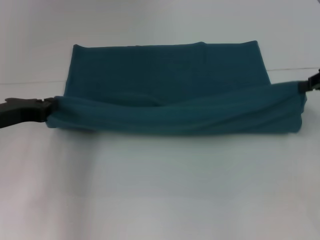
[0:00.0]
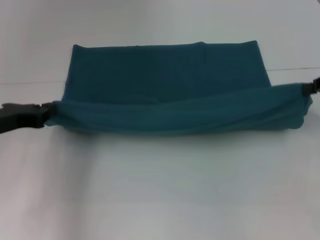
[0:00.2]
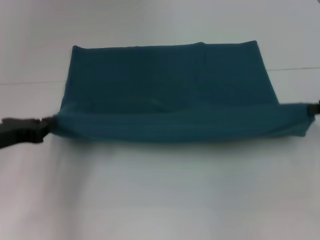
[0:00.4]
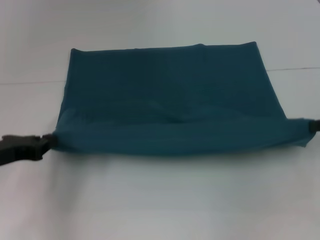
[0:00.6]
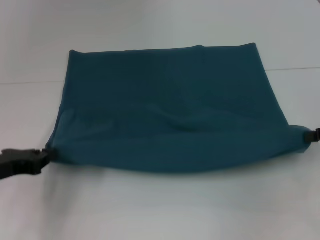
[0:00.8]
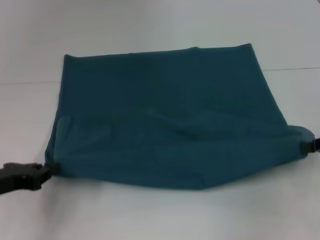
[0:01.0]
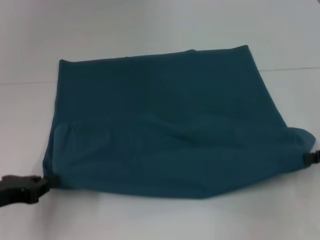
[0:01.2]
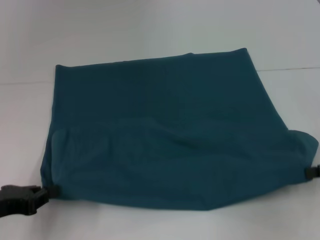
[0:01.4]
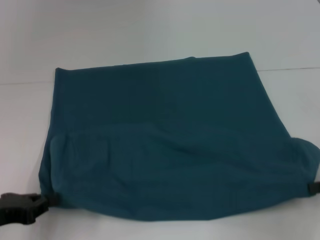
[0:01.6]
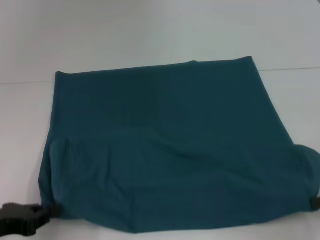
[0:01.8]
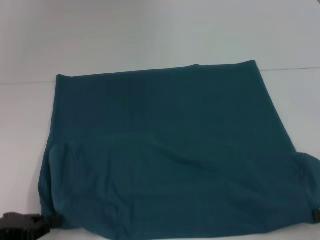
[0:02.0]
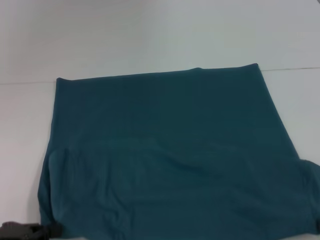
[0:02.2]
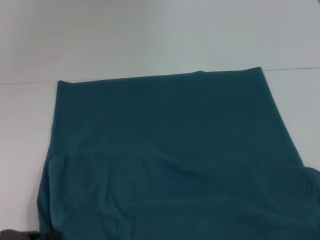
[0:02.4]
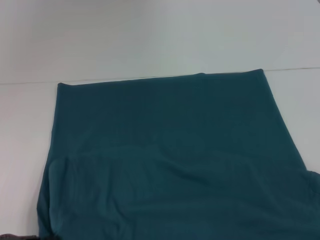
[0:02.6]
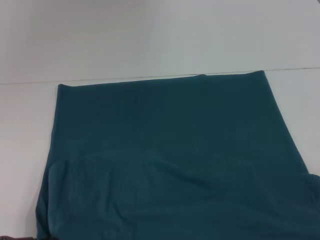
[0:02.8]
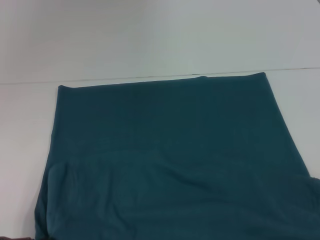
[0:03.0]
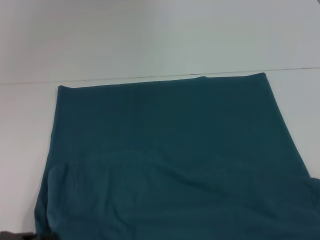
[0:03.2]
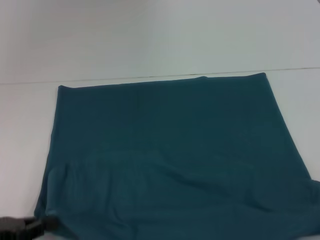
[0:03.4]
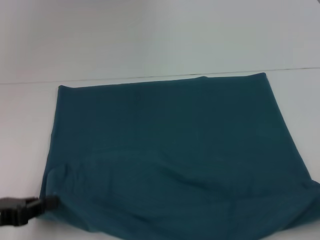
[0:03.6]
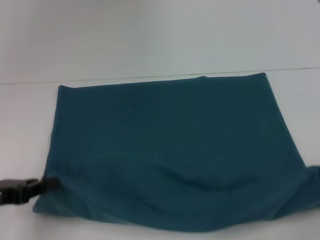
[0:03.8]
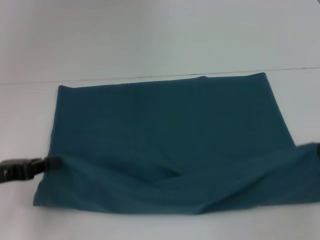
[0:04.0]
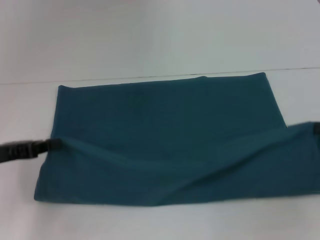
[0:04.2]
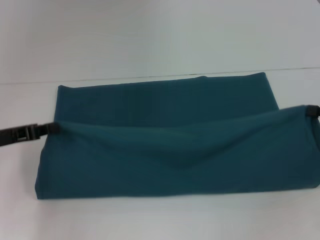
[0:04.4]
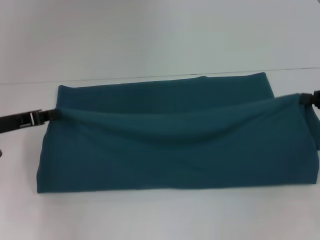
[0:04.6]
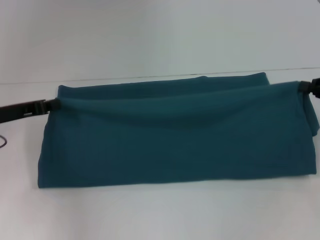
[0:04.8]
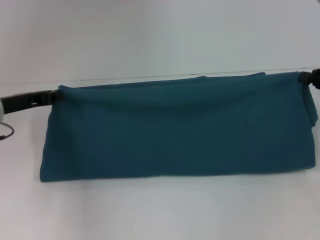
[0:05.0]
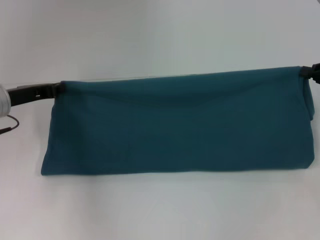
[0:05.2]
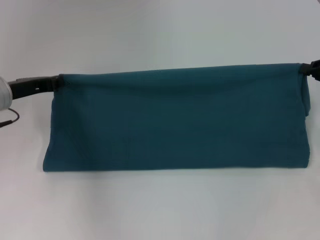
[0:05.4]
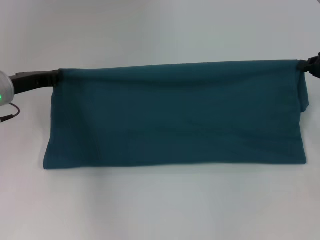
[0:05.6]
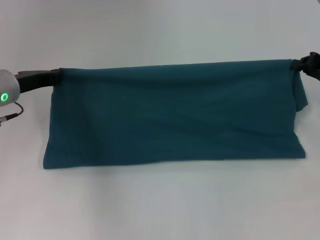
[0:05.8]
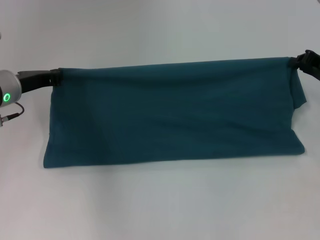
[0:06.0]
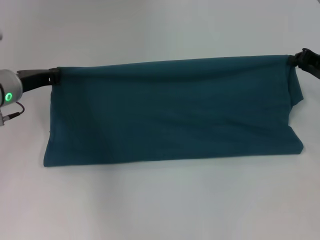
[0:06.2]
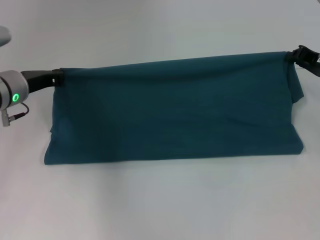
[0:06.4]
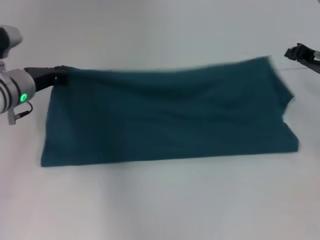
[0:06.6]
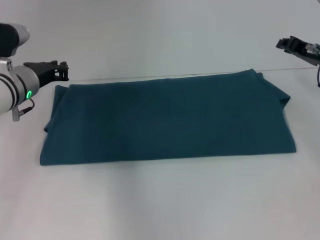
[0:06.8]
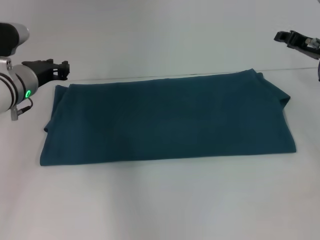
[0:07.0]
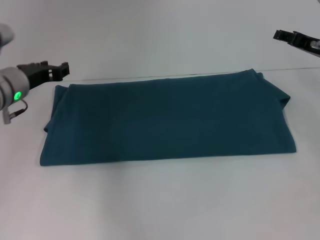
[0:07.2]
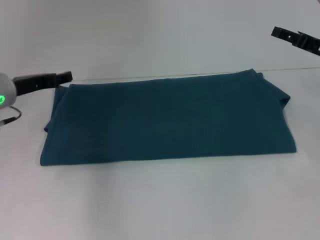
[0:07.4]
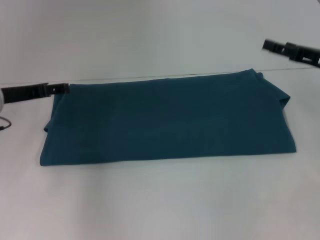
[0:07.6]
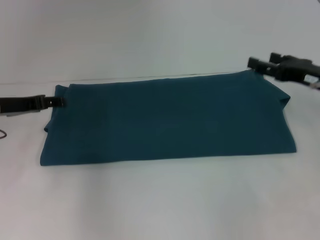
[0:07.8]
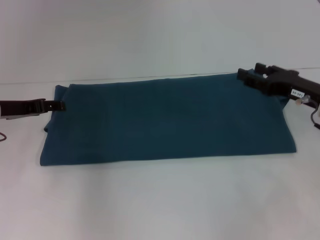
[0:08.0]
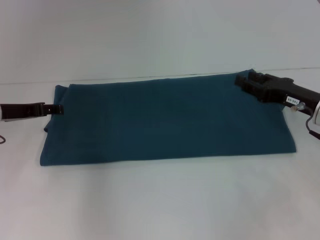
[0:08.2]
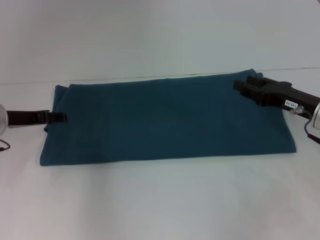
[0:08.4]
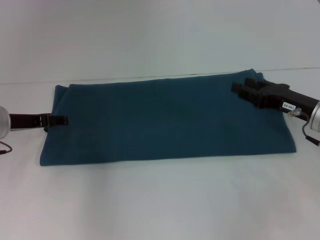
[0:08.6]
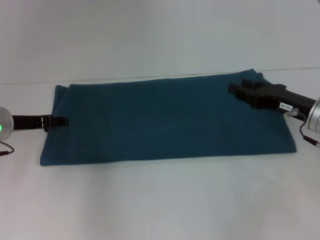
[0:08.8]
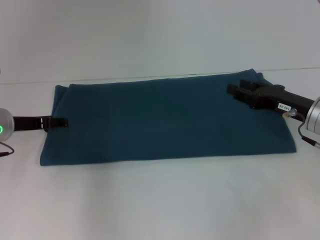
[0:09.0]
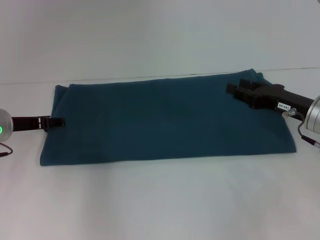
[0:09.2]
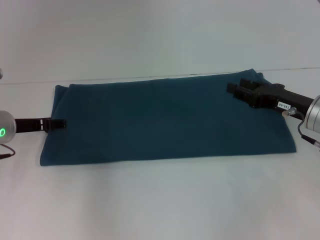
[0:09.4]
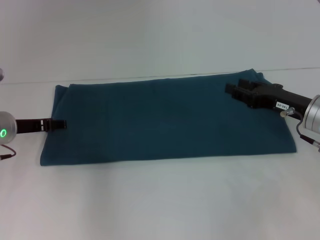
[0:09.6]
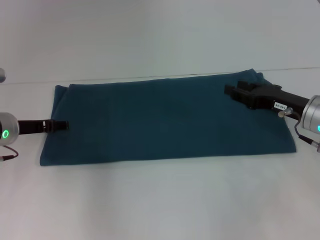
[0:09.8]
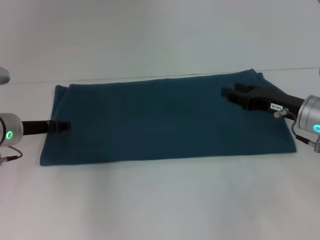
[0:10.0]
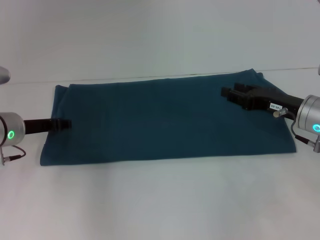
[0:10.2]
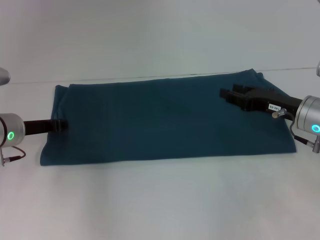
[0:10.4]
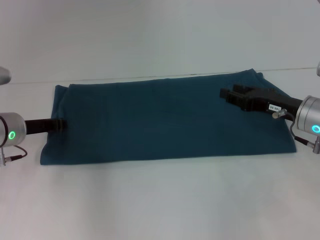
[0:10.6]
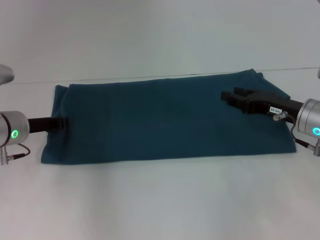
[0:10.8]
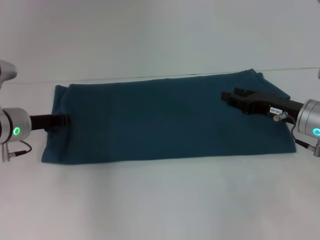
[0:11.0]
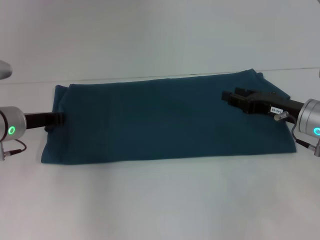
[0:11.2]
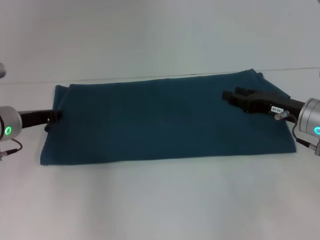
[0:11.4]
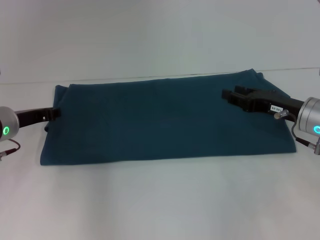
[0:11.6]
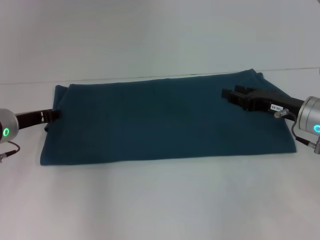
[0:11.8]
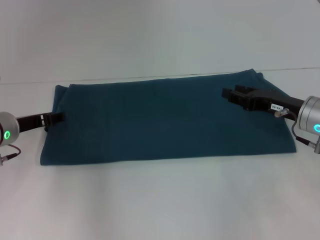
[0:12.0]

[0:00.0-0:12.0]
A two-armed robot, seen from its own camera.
Step, 0:00.0 to 0:02.8: Pull the clothes with your left hand.
Step, 0:00.0 to 0:02.8: Pull the clothes with your right hand.
Step, 0:03.0 to 0:07.4: Fold the clothes to the left.
Step, 0:03.0 to 0:07.4: Fold the clothes to the right.
0:00.0 to 0:01.6: The left gripper shifts about 10 cm backward, while the right gripper shifts about 15 cm backward and downward.
0:01.6 to 0:03.0: The right gripper goes approximately 10 cm backward. The left gripper is displaced backward by roughly 5 cm.
0:03.0 to 0:04.4: Both grippers travel together forward, approximately 15 cm.
0:04.4 to 0:06.0: The right gripper travels forward by approximately 10 cm; the left gripper is displaced forward and to the right by approximately 10 cm.
0:06.0 to 0:07.6: The right gripper opens its fingers. Meanwhile the left gripper opens up.
0:07.6 to 0:09.0: The right gripper is displaced downward and to the left by approximately 10 cm.
0:09.0 to 0:10.4: The left gripper closes up.
0:10.4 to 0:12.0: The left gripper closes, then reopens.

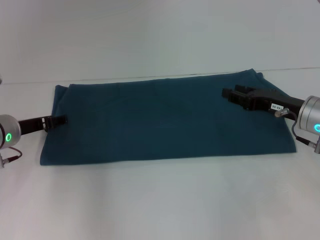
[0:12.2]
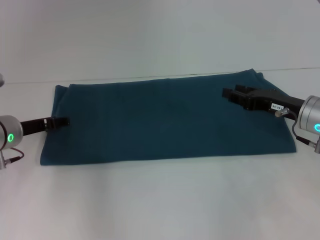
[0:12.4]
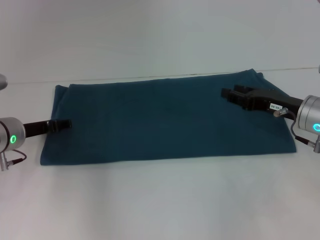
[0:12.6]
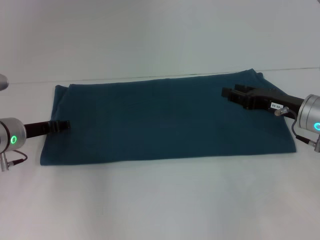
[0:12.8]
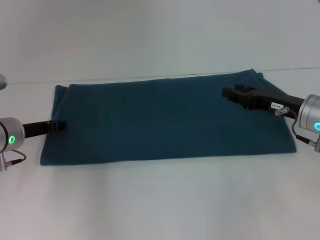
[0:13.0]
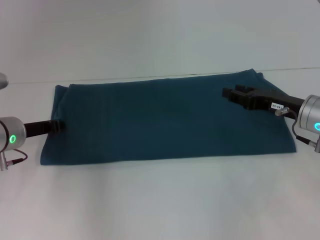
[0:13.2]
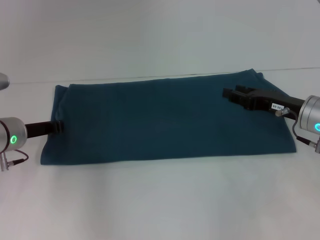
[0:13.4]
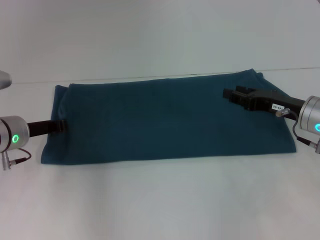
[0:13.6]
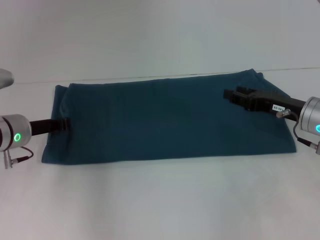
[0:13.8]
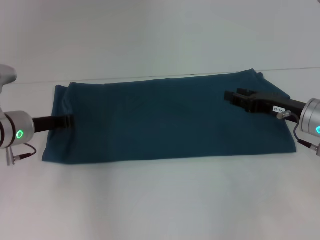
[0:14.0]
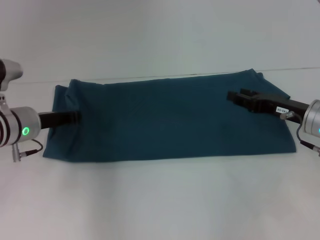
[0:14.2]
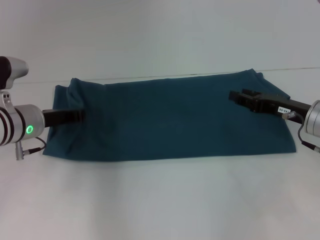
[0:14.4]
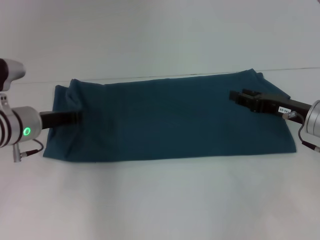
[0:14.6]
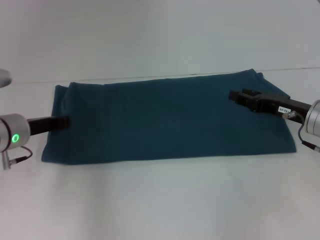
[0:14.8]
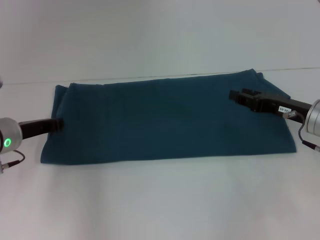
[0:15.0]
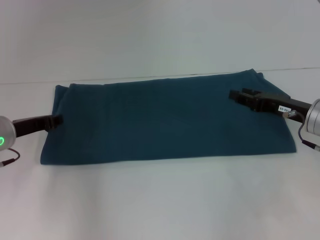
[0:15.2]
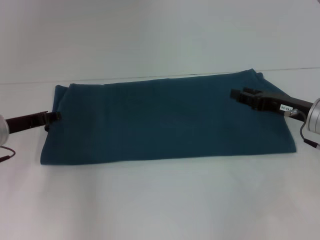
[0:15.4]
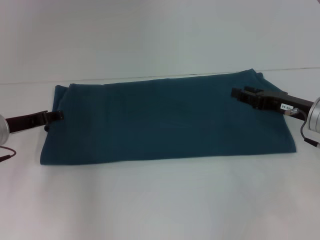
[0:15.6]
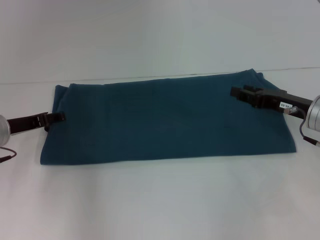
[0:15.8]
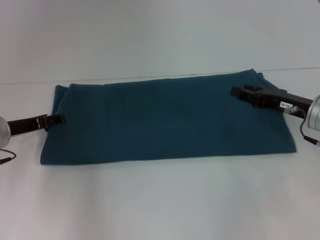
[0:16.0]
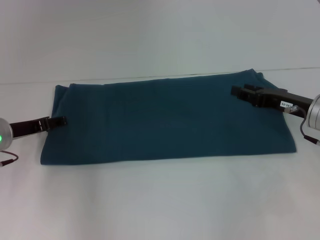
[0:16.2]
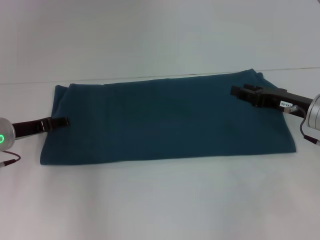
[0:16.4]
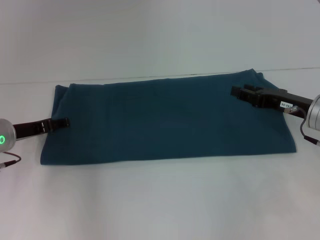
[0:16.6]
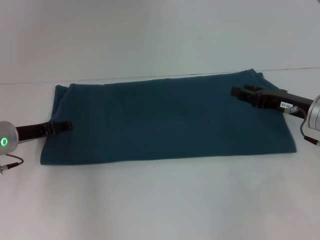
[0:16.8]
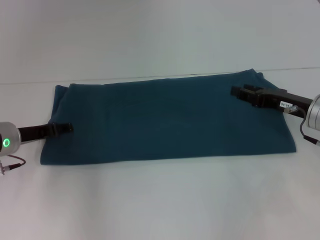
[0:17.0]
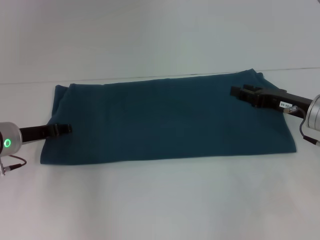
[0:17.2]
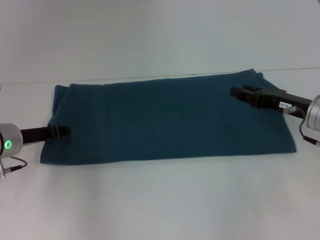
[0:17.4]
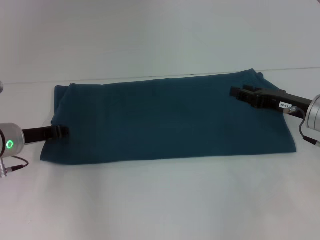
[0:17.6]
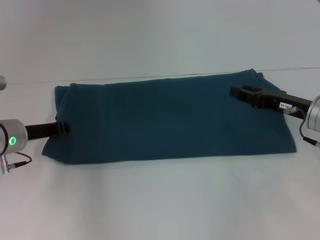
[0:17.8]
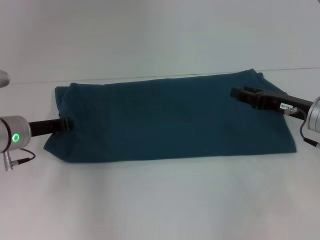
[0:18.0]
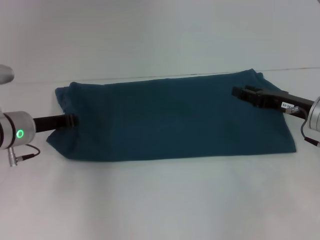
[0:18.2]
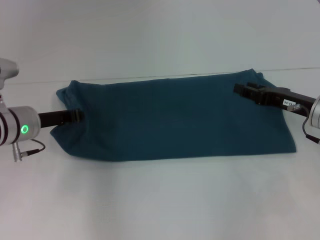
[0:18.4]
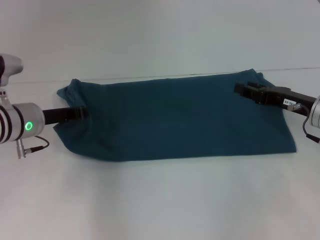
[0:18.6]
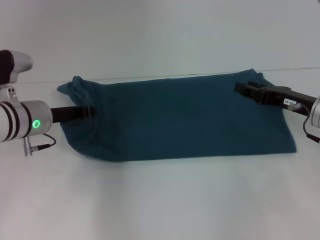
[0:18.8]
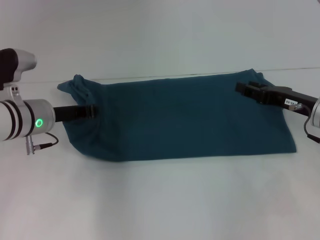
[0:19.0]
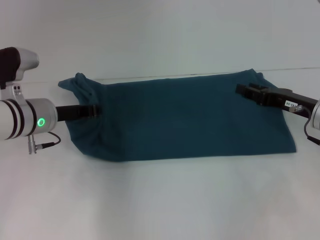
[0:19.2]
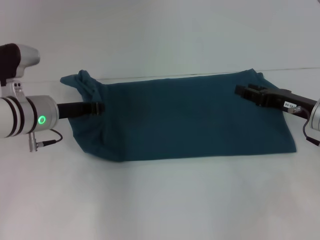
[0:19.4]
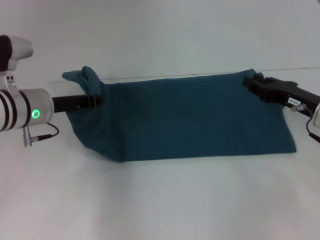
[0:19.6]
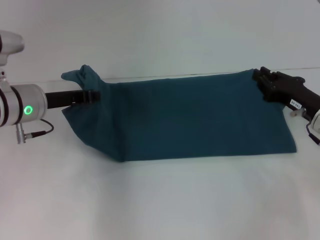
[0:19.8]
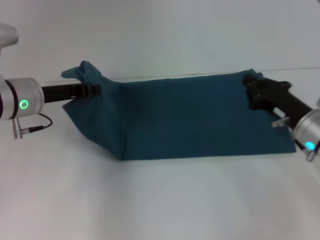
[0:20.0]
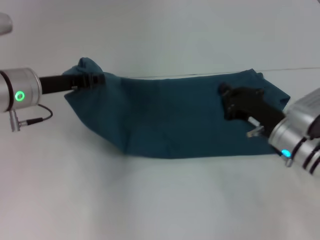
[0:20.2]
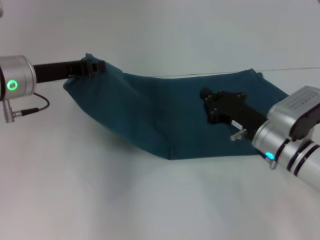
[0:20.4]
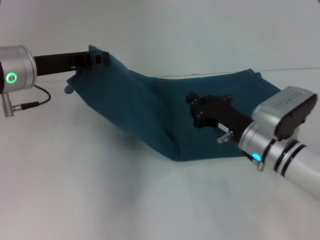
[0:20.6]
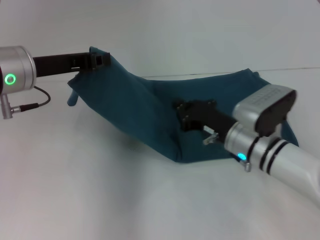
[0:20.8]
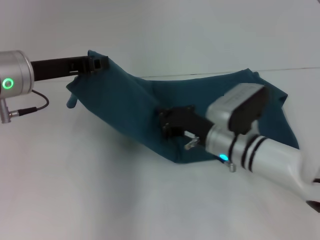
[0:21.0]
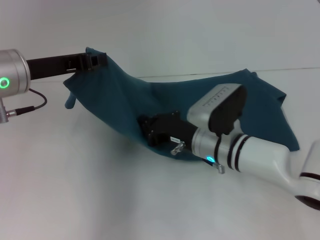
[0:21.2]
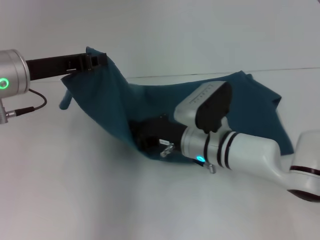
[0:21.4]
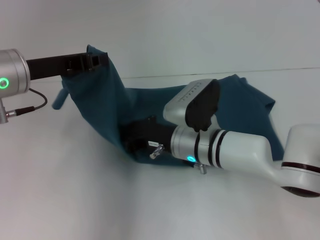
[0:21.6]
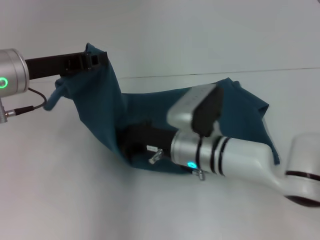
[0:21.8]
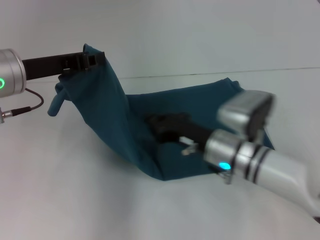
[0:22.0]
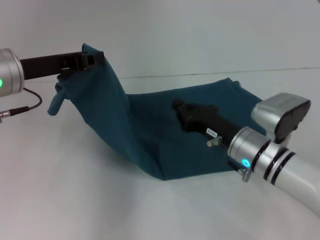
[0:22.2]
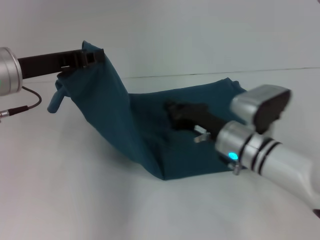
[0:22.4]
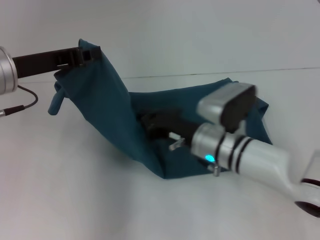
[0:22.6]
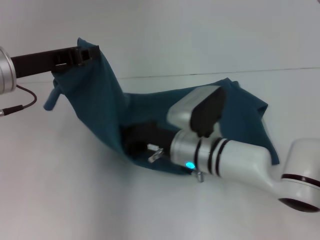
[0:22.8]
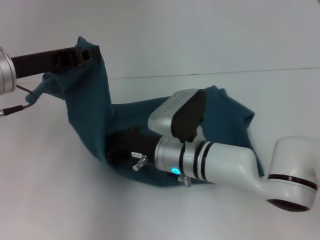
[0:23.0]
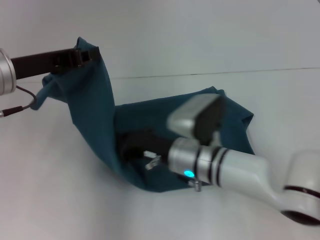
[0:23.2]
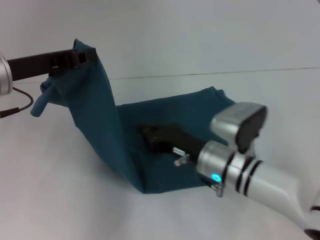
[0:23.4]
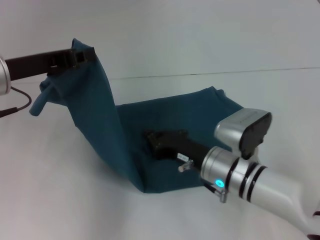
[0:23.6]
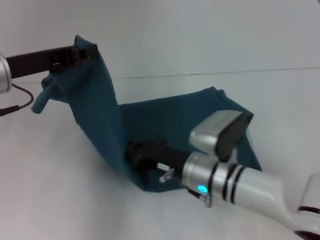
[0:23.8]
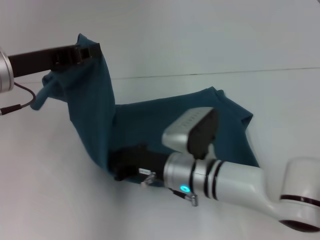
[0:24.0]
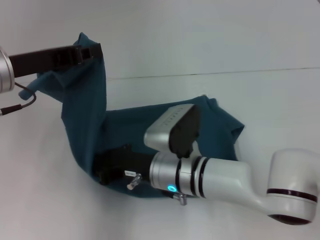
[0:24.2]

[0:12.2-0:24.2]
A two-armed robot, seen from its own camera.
0:12.2 to 0:13.8: The left gripper closes its fingers.
0:13.8 to 0:15.2: The grippers move only a little.
0:15.2 to 0:16.6: The left gripper opens its fingers.
0:16.6 to 0:18.2: The left gripper closes its fingers.
0:18.2 to 0:19.8: The left gripper is displaced upward by approximately 5 cm.
0:19.8 to 0:21.2: The left gripper travels upward by some 5 cm. Meanwhile the right gripper moves to the left, about 20 cm.
0:21.2 to 0:22.6: The right gripper reaches some 5 cm to the right, then returns.
0:22.6 to 0:24.2: The right gripper moves left and right over approximately 10 cm, changing direction 2 times.
